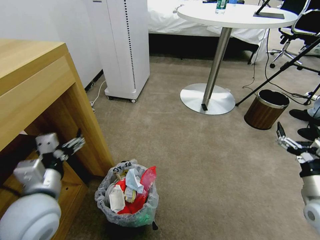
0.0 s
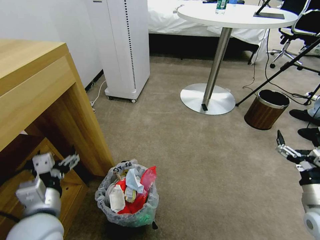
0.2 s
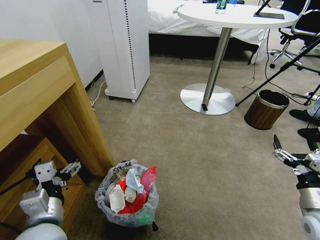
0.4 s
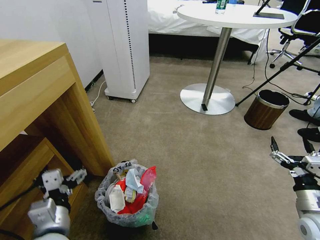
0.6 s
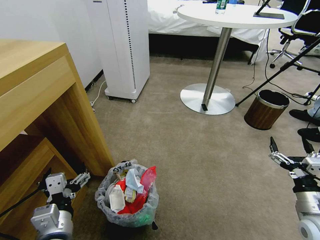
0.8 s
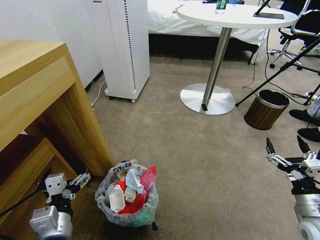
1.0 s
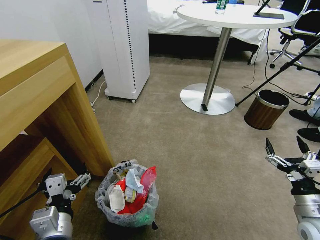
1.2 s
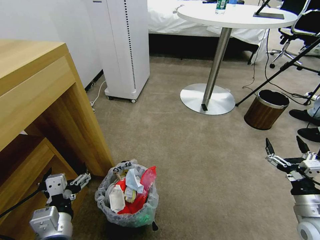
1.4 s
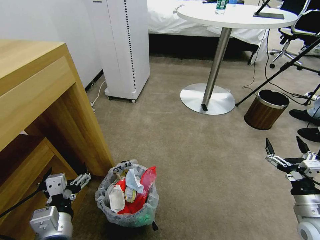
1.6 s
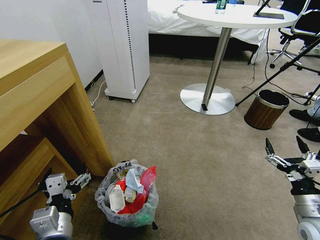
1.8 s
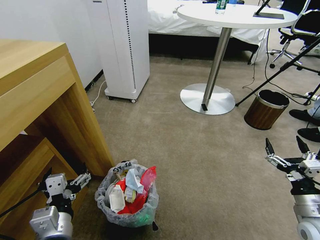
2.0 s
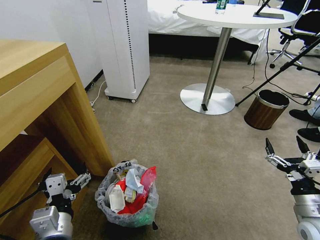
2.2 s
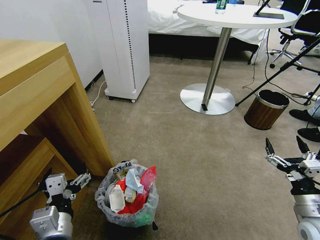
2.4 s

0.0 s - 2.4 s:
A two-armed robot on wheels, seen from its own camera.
Task of the whole recording: Pick up the trash bin and place the garbage on the floor into it.
0.0 s - 1.2 s: The left gripper is displaced backward and downward by about 10 cm. The right gripper ends up some 5 cm from where it was.
1.2 s - 2.4 s: Neither gripper changes place.
